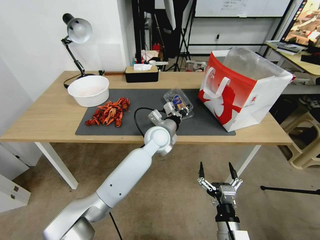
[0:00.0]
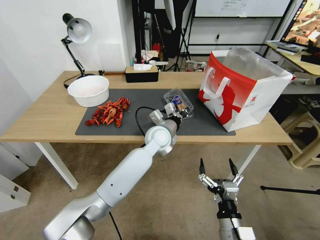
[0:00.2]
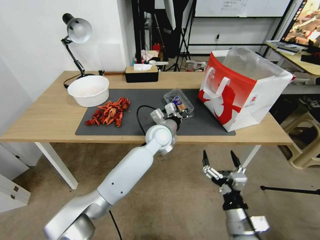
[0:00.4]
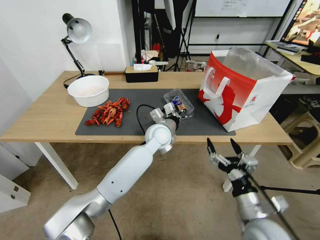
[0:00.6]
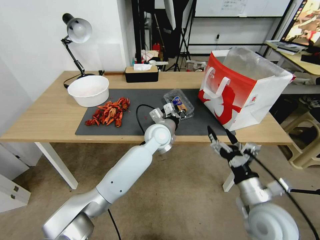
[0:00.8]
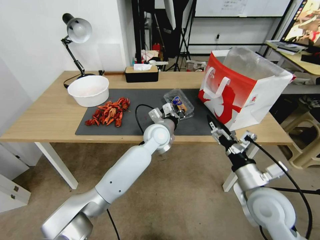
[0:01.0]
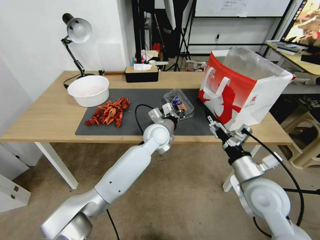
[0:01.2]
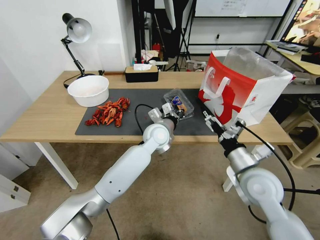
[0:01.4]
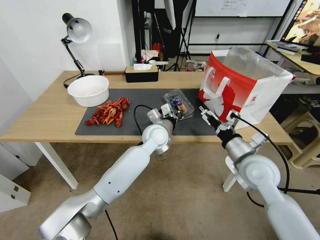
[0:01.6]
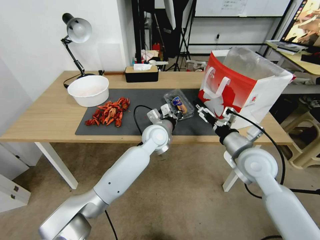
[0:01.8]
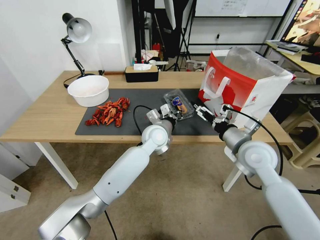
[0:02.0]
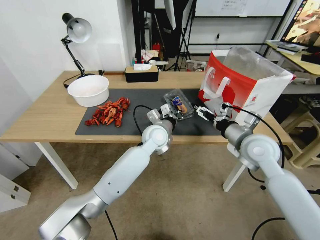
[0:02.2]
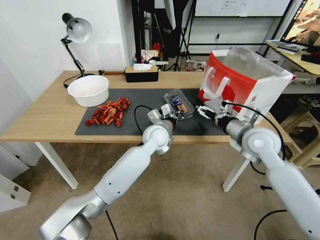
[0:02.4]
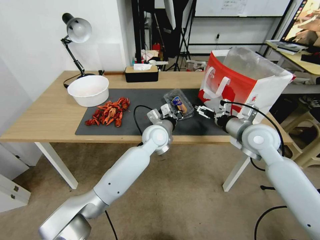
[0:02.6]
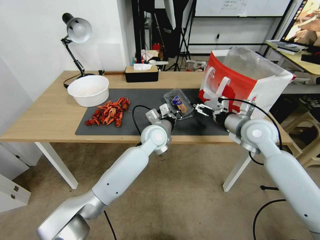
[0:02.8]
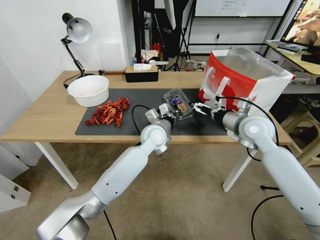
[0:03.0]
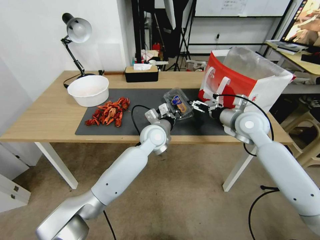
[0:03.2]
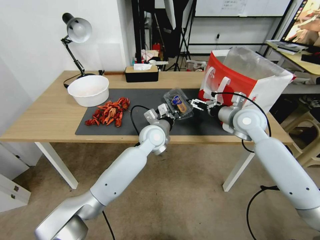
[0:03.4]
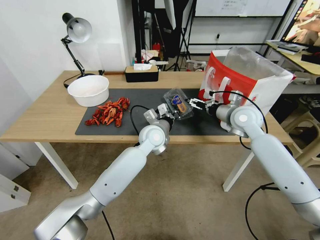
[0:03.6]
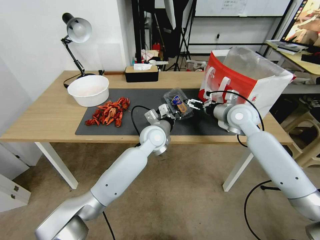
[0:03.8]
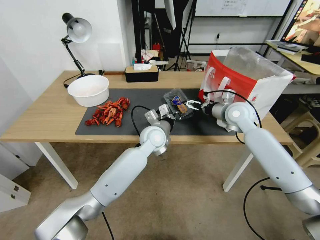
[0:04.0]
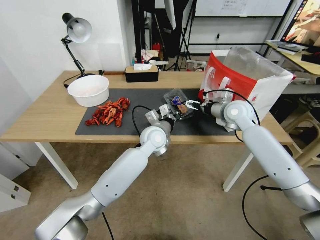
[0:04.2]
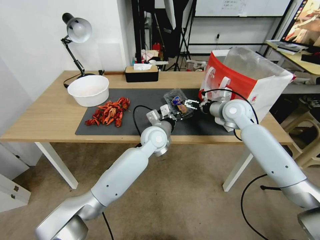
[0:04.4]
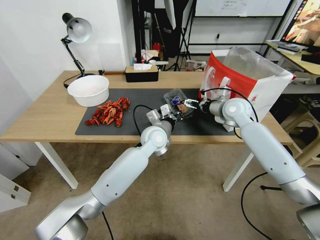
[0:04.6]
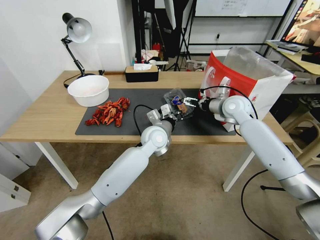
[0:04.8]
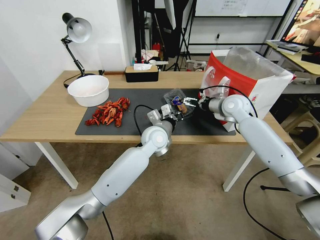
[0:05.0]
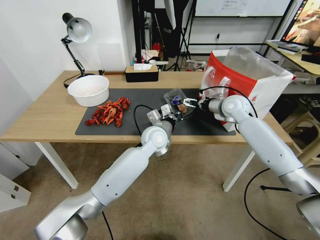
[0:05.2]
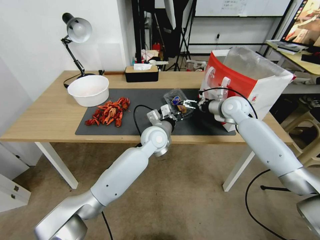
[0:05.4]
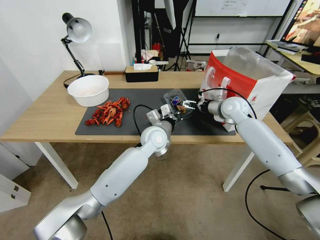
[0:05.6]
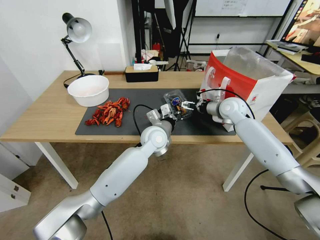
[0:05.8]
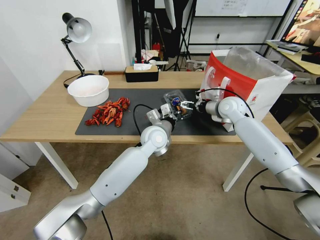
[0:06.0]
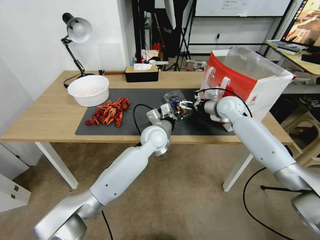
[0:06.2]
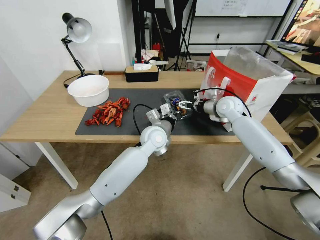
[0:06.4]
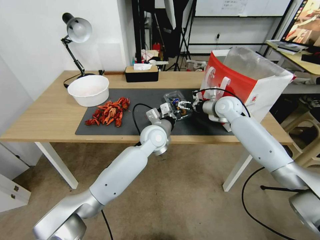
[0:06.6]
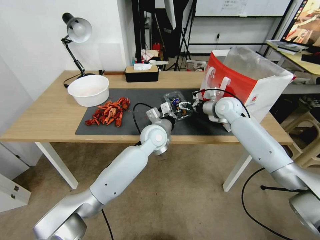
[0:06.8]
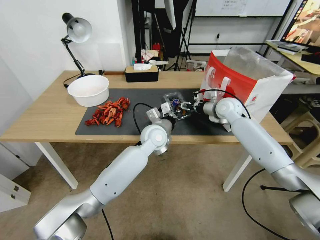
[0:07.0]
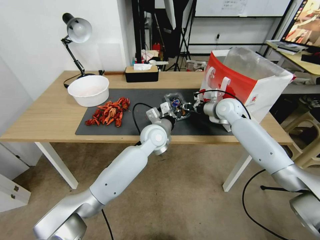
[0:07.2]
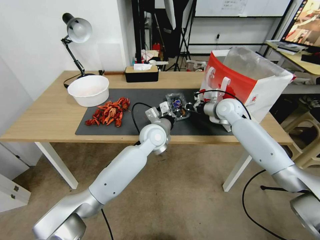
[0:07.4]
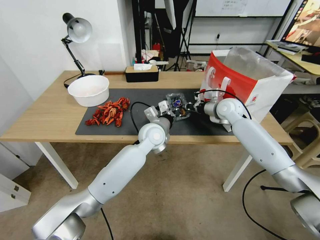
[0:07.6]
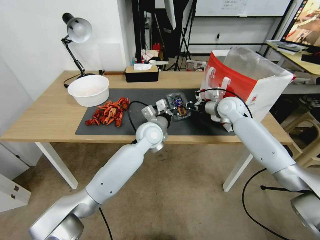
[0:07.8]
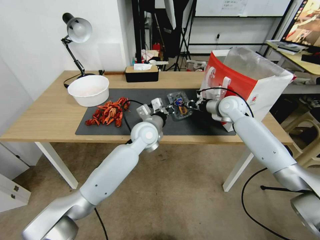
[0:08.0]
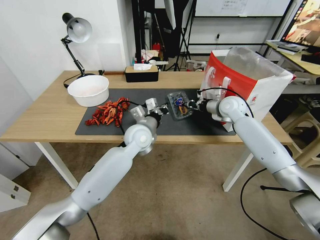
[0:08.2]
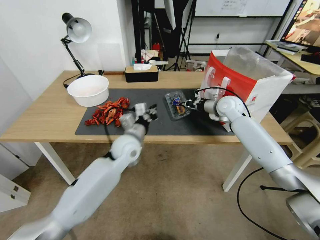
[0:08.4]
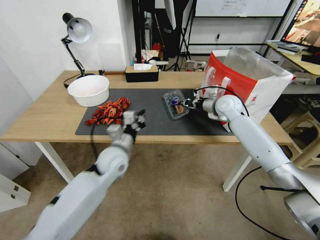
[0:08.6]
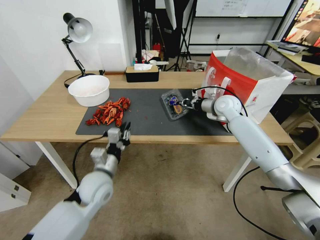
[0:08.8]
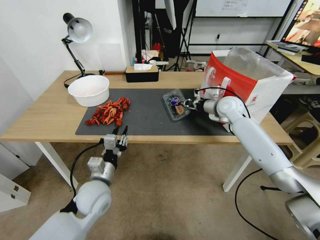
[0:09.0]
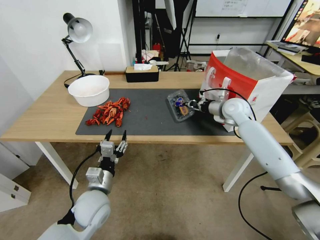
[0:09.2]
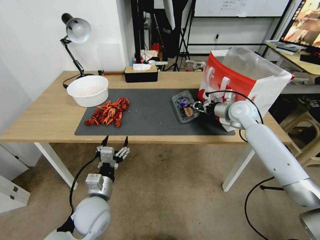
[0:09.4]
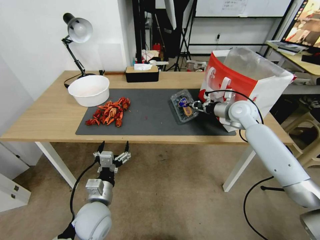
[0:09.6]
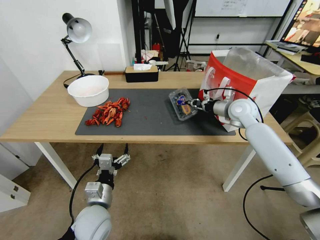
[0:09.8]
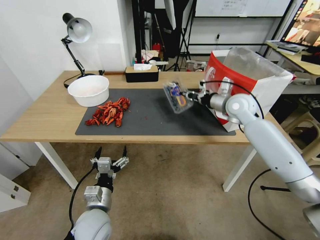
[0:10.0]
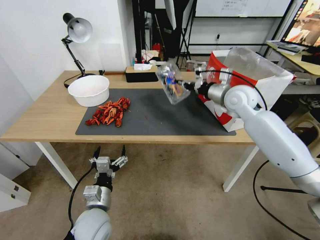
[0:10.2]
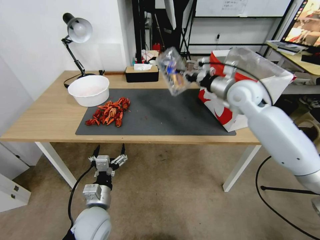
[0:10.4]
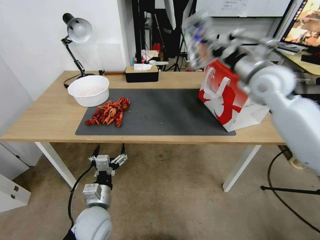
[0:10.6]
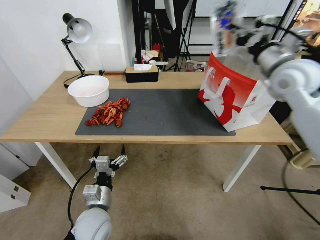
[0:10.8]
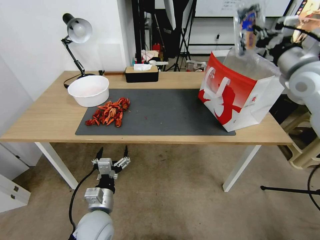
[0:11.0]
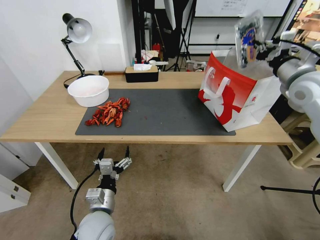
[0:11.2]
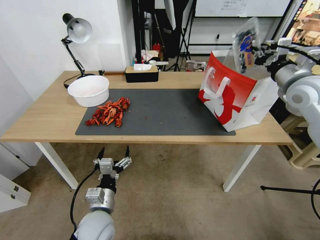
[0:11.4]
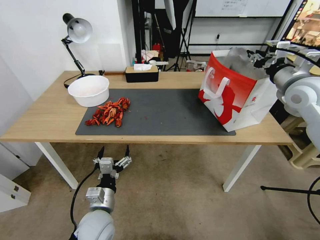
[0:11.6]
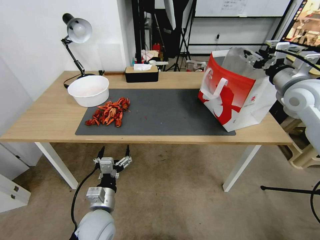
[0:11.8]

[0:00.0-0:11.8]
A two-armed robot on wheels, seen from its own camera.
Task of the whole recording: Close the takeout container lid, then place the container into the takeout bag.
0:00.0 to 0:01.4: The right gripper heads forward, upward and to the right, covering some 25 cm.
0:01.4 to 0:03.0: The right gripper heads forward, covering about 15 cm.
0:03.0 to 0:04.4: The right gripper is displaced forward by about 10 cm.
0:04.4 to 0:06.0: The grippers move only a little.
0:06.0 to 0:07.4: The right gripper closes its fingers.
0:07.4 to 0:08.8: The left gripper moves to the left and backward, some 15 cm.
0:08.8 to 0:10.4: The left gripper travels backward and downward by approximately 20 cm, and opens its fingers. The right gripper is displaced upward and backward by approximately 15 cm.
0:10.4 to 0:11.8: The right gripper travels to the right and backward by some 15 cm, and opens up.

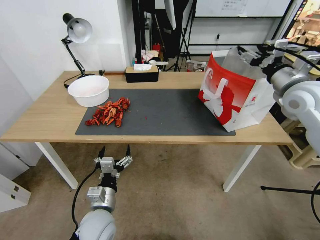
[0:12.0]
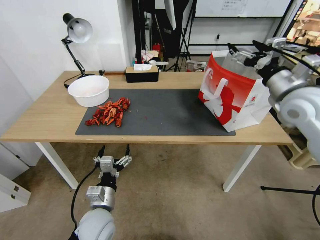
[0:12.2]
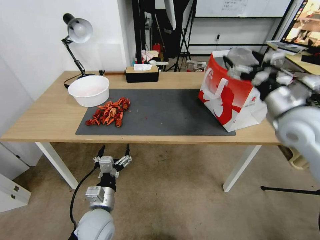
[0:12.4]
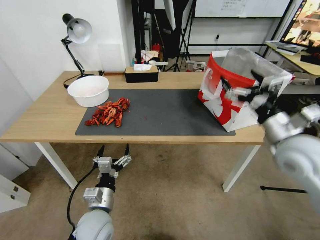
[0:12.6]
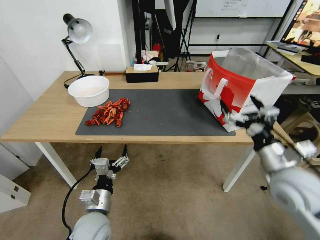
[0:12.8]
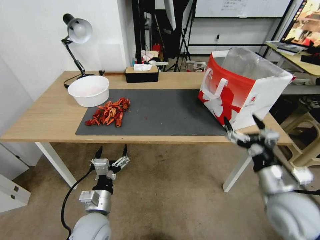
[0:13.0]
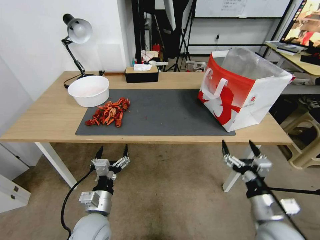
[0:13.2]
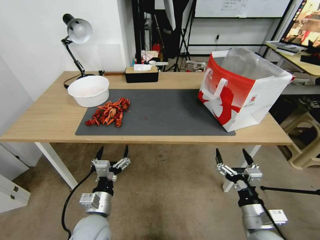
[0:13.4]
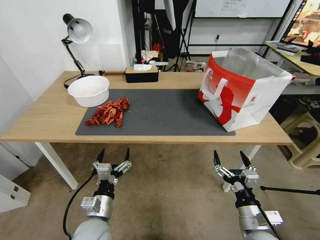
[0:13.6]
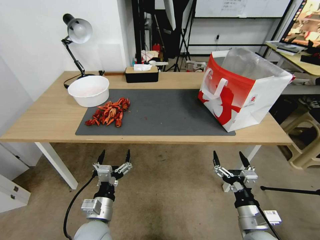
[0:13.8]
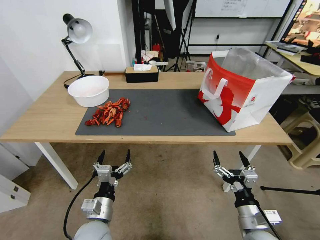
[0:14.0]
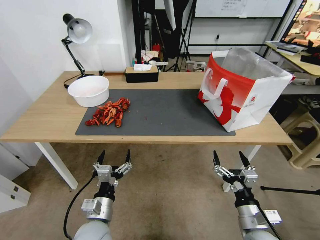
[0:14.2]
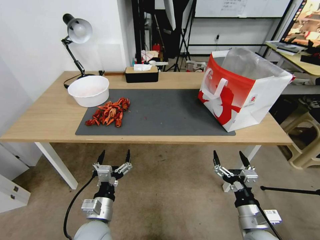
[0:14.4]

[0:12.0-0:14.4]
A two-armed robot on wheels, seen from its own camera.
Task of the whole recording: Close the takeout container lid, then place the container into the takeout bag.
0:12.0 to 0:13.2: The right gripper shifts approximately 35 cm backward and downward.
0:13.2 to 0:14.4: The right gripper ends up roughly 5 cm from where it was.
